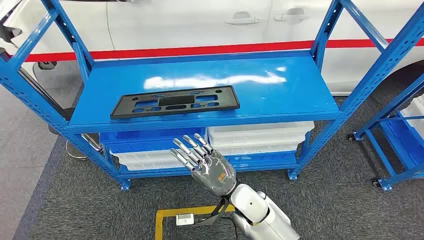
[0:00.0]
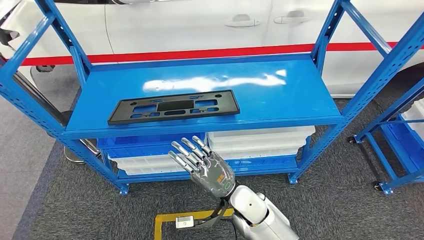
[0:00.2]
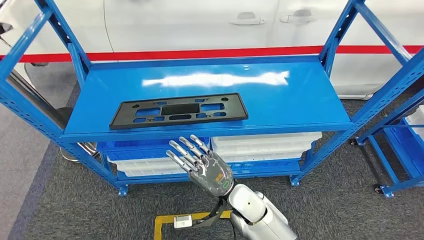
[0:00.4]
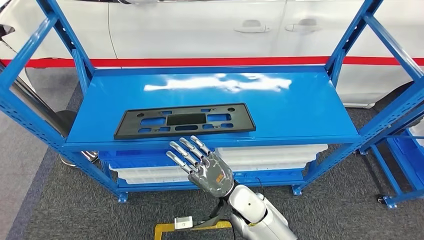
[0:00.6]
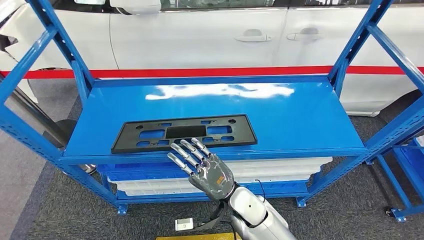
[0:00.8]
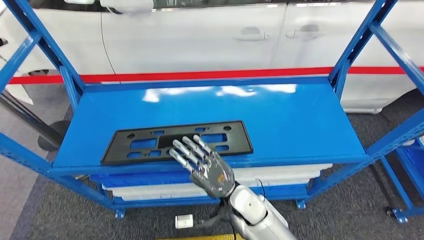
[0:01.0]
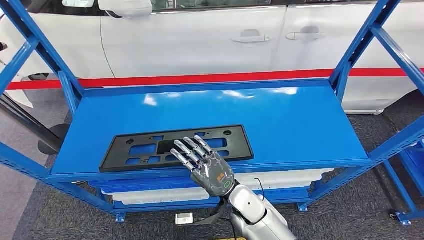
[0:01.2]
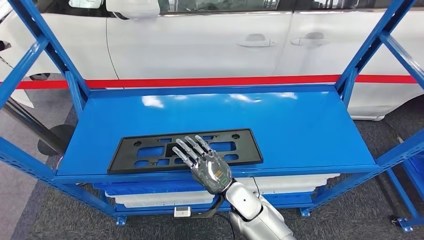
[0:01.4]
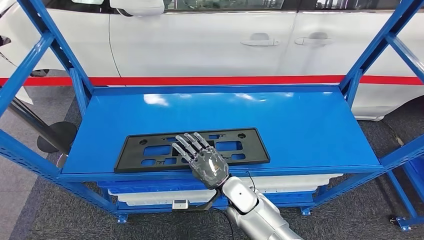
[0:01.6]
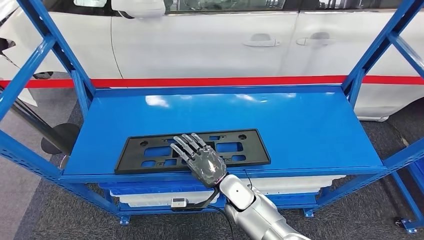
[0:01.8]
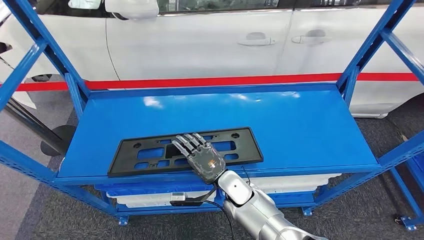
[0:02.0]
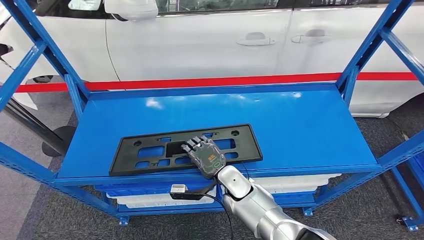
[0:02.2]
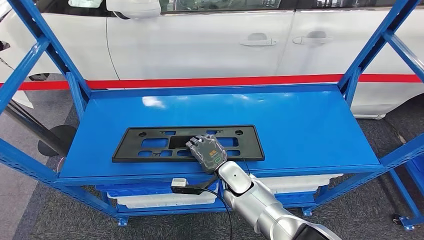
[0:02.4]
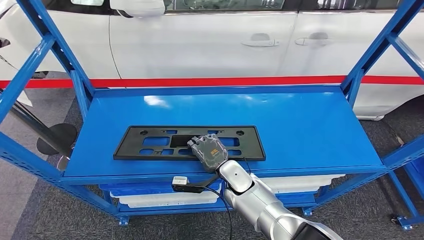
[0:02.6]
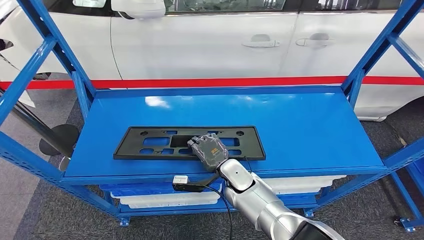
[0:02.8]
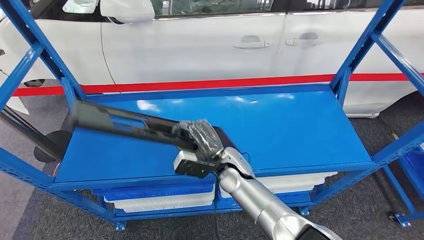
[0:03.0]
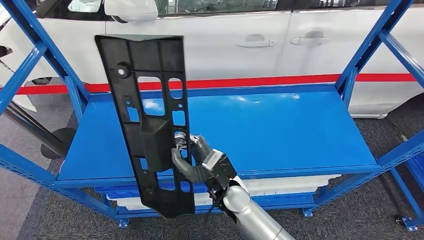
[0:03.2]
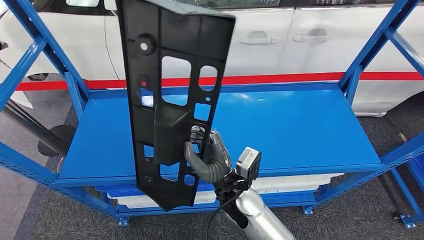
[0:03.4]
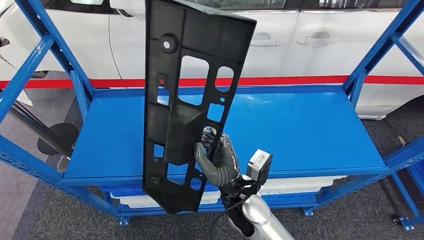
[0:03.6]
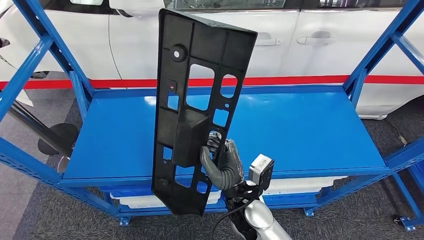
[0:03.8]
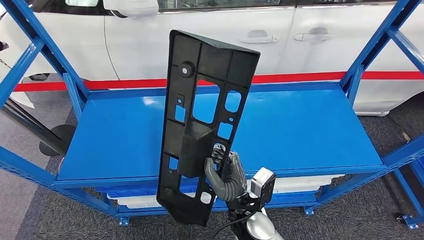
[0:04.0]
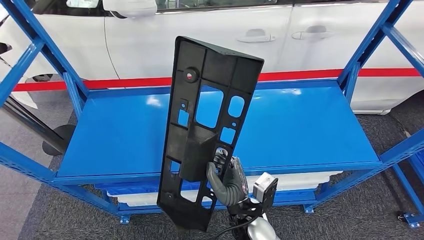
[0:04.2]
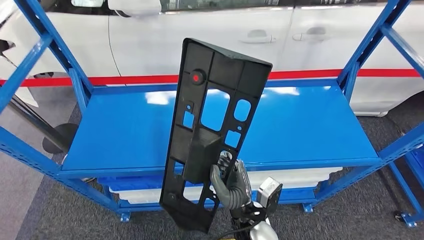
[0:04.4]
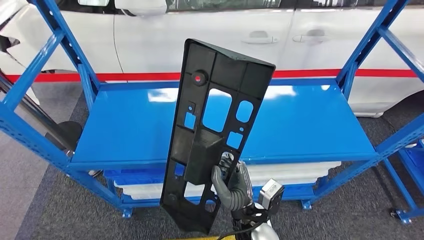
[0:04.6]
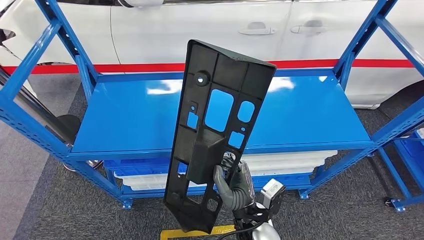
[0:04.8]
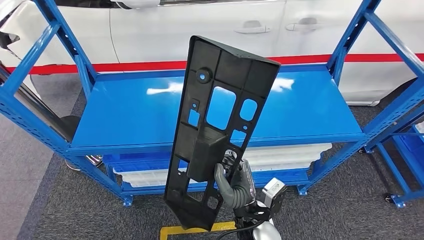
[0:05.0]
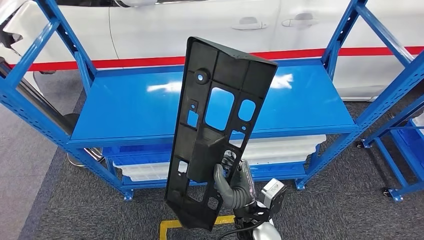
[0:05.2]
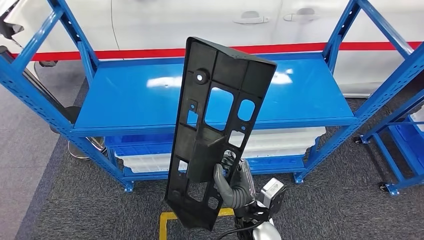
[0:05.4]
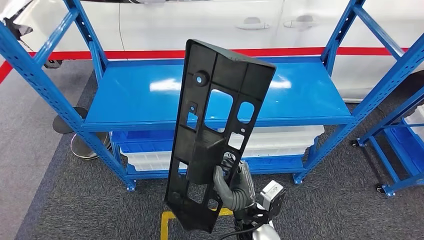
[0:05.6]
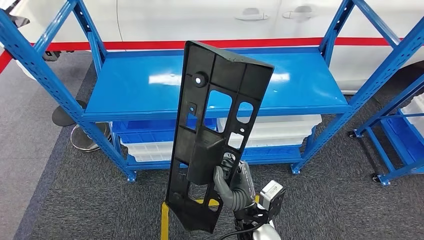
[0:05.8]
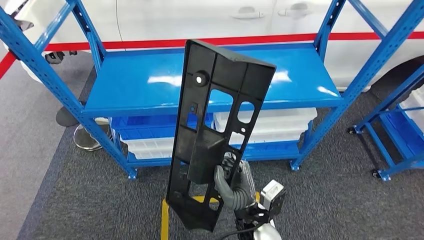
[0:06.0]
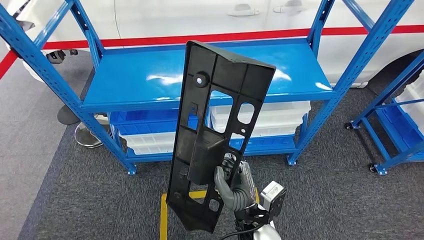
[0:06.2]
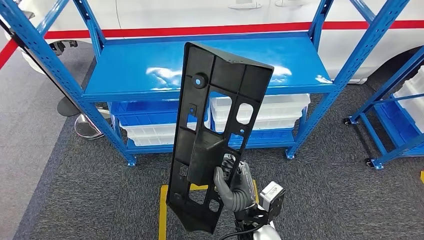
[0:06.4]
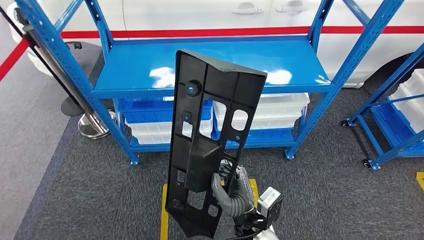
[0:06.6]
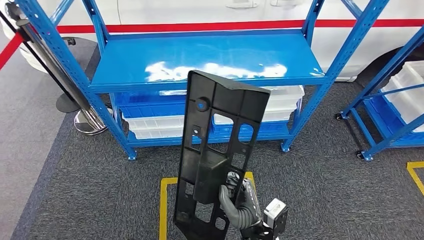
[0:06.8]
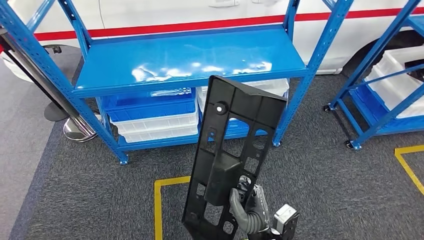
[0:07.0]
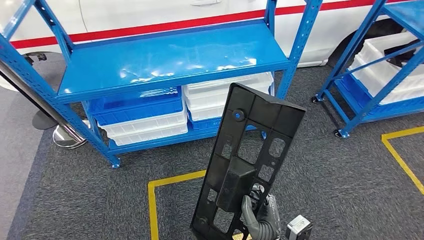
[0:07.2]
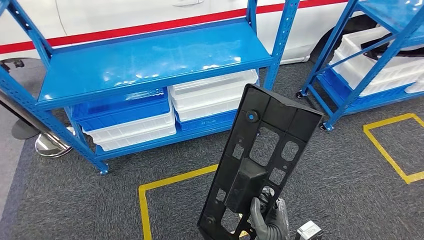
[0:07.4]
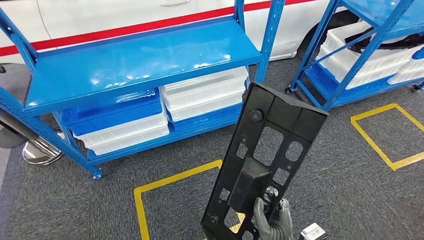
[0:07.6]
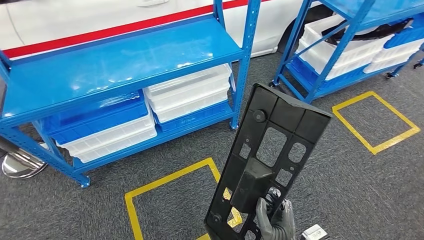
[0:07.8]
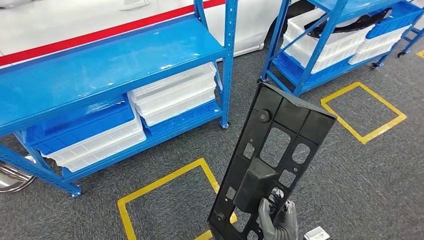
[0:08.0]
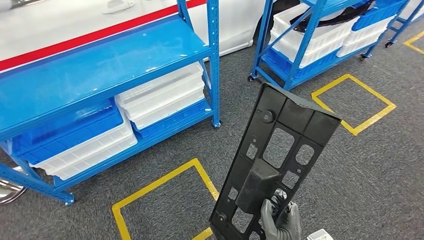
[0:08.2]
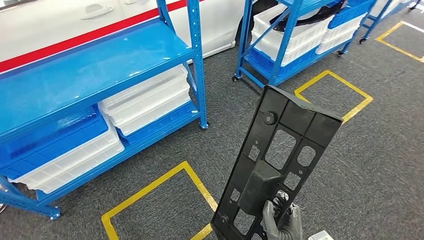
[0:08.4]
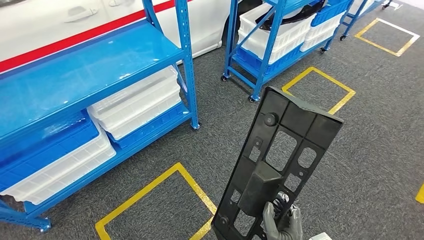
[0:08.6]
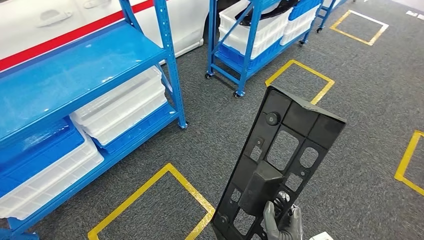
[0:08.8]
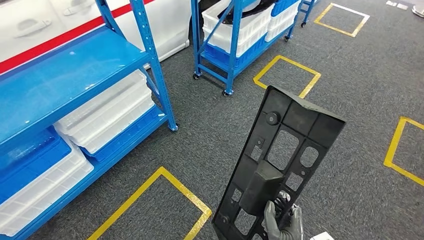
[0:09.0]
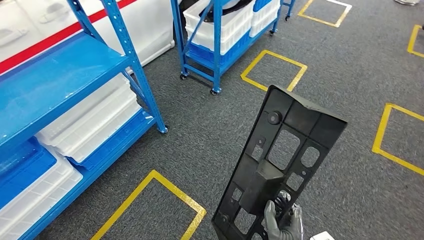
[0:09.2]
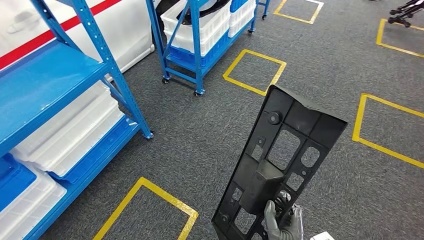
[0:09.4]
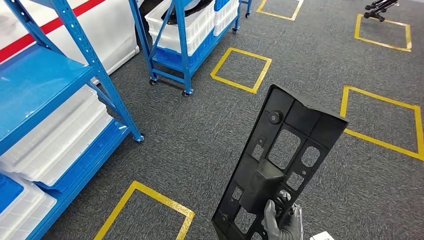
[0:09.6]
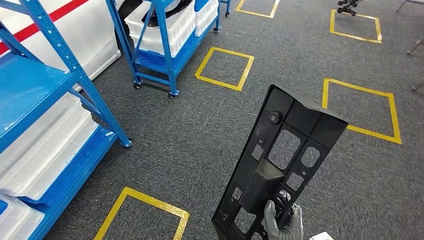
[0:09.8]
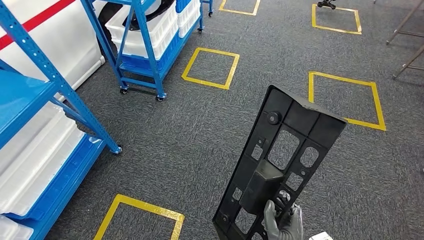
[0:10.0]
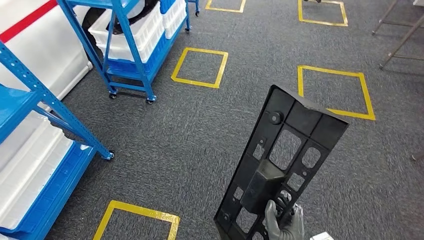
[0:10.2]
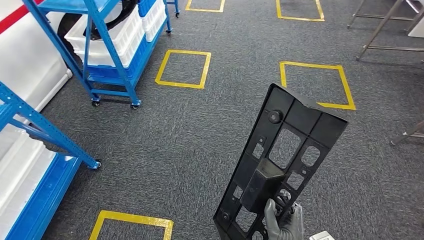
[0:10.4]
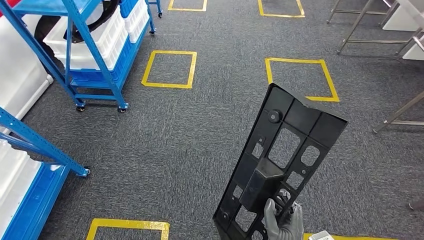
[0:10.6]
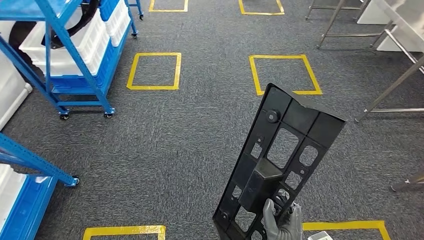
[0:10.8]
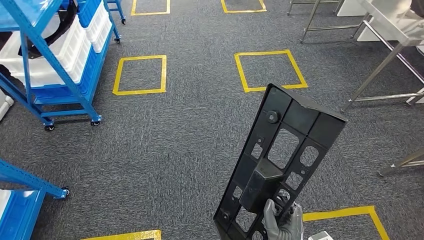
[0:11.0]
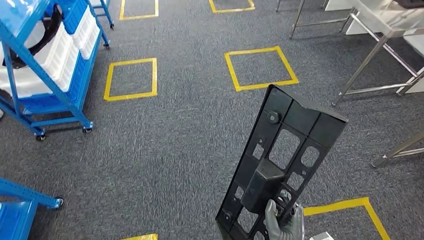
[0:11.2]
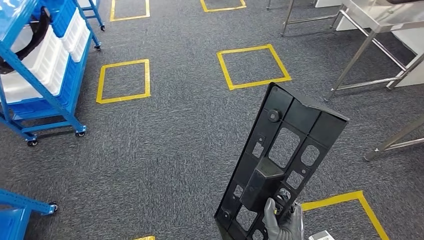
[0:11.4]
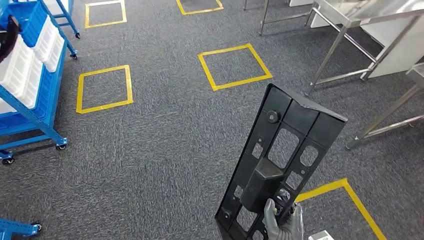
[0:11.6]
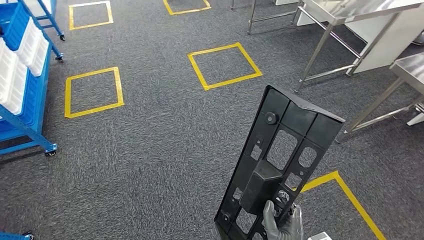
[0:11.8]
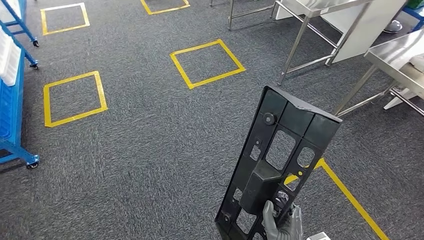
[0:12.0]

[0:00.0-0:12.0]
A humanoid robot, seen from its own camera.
Step, 0:00.0 to 0:06.2: Pick up the large material from the shelf.

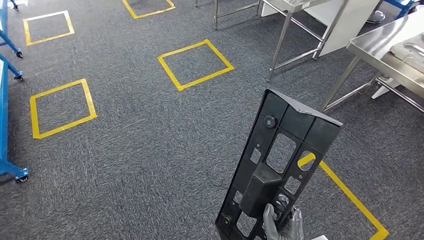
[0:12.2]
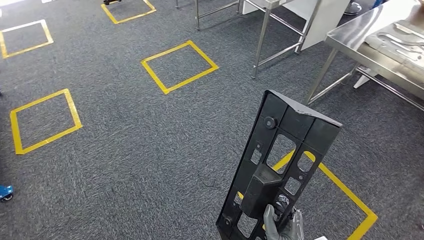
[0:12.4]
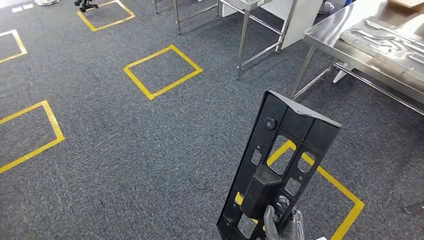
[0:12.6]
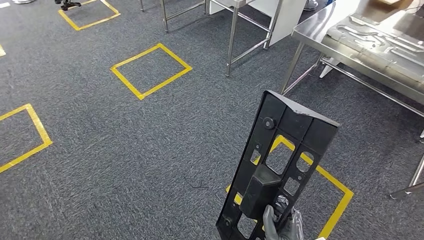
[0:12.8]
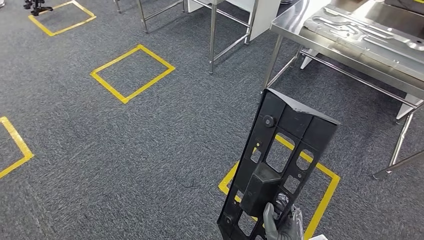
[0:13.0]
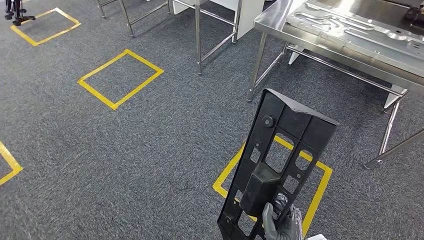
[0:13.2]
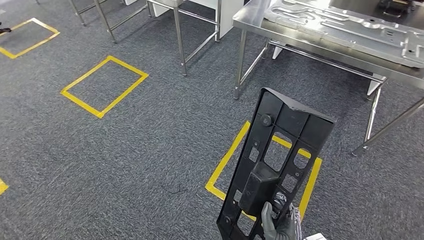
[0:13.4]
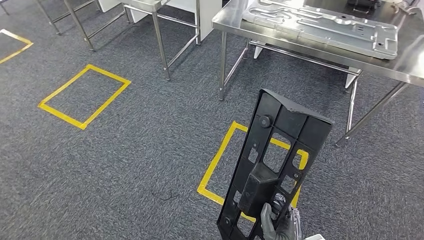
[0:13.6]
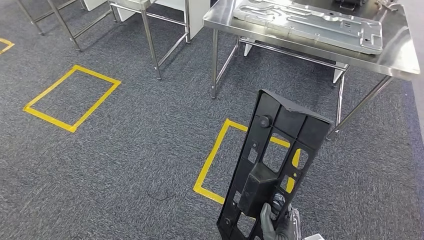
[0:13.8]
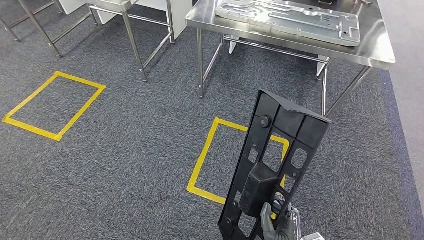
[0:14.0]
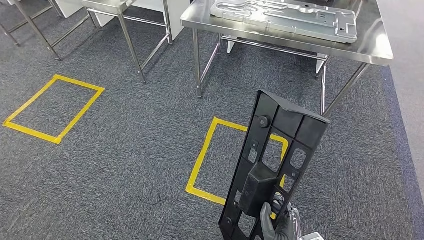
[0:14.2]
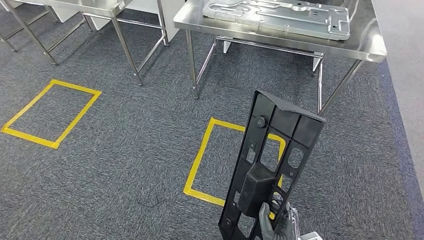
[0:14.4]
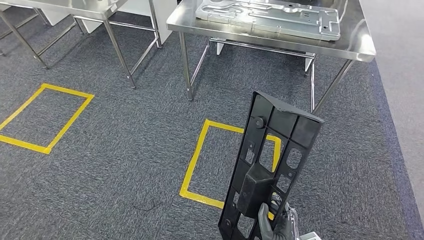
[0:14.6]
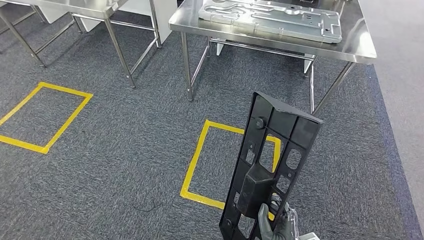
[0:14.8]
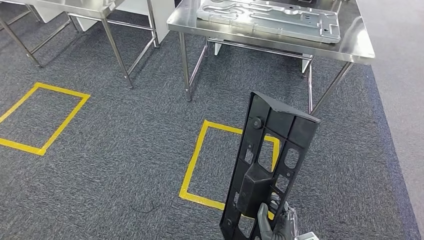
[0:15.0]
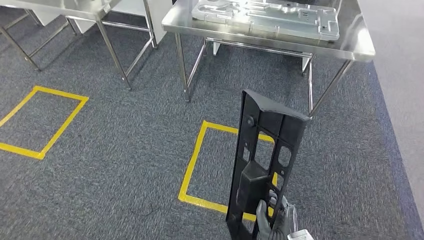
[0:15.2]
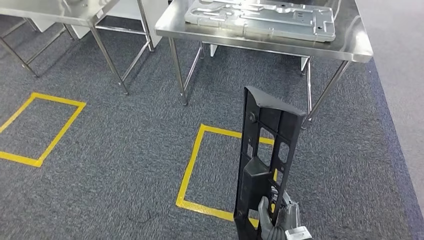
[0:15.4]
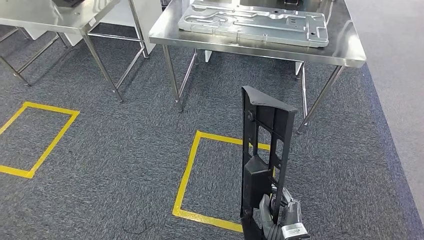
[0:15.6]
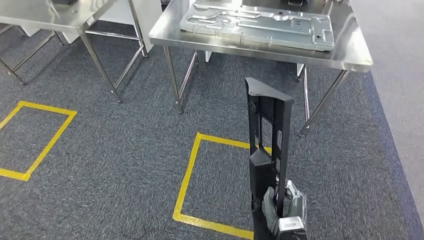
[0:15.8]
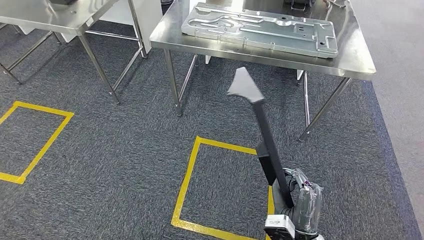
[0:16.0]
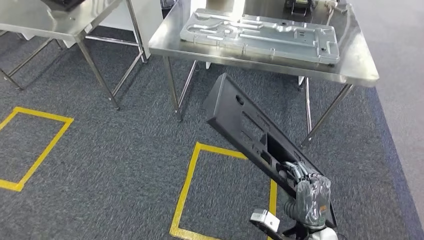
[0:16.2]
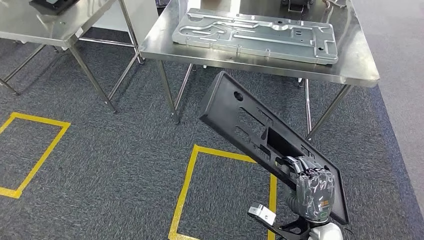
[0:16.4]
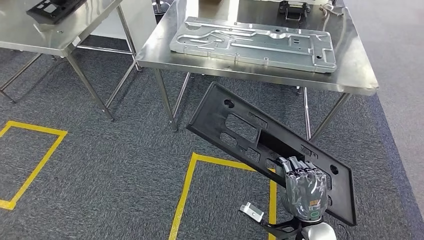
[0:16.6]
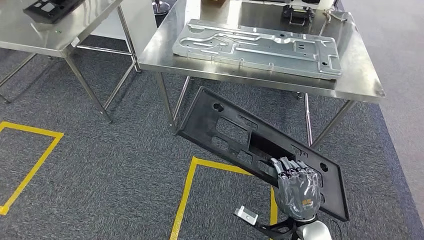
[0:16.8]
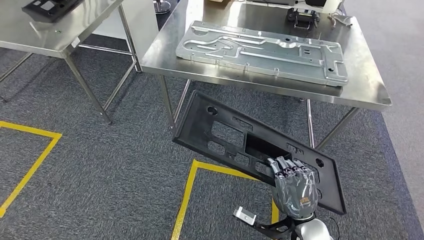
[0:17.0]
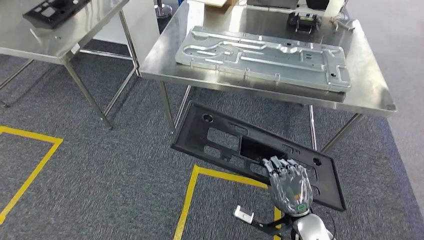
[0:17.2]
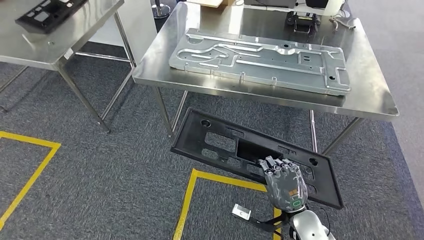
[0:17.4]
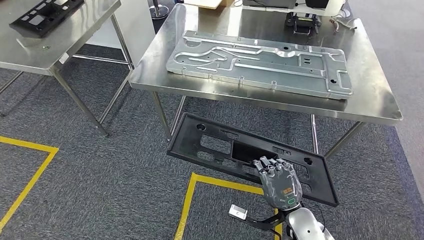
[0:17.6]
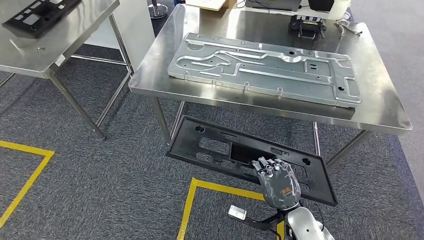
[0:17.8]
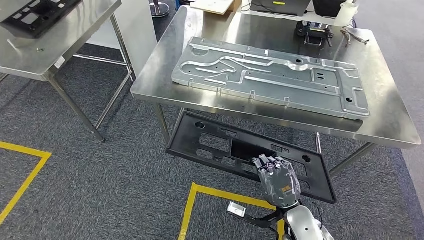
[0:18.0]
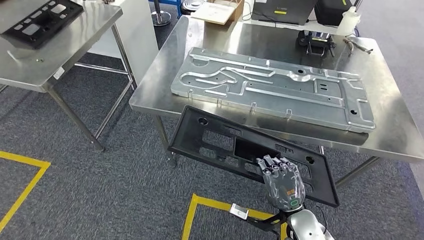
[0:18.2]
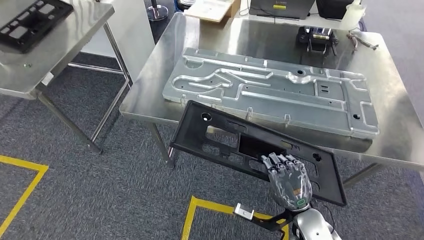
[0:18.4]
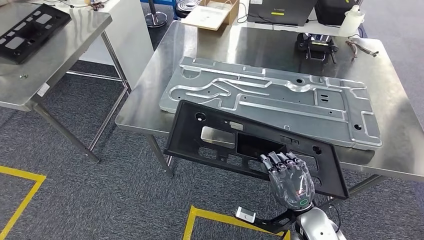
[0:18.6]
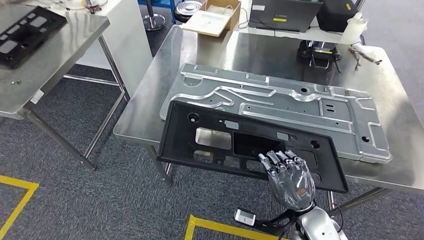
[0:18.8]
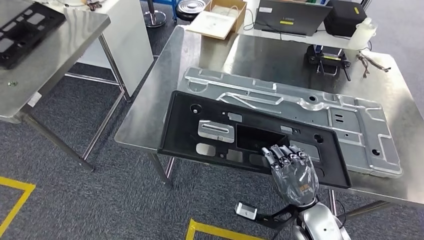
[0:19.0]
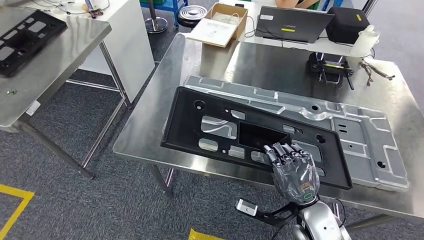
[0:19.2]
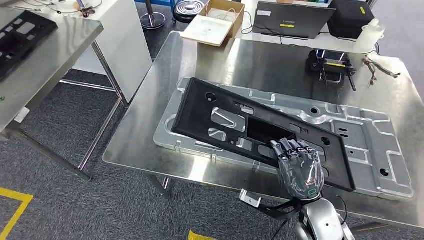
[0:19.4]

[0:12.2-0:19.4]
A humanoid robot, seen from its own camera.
Step, 0:12.2 to 0:17.4: Move the large material to the workbench.
